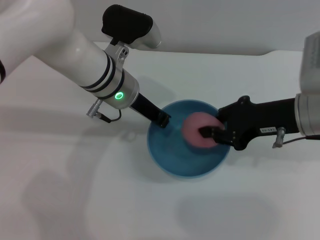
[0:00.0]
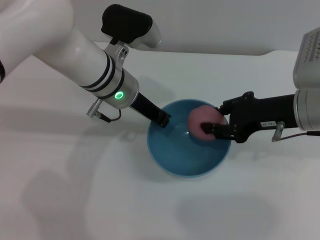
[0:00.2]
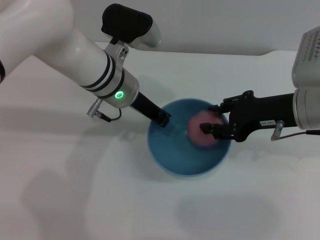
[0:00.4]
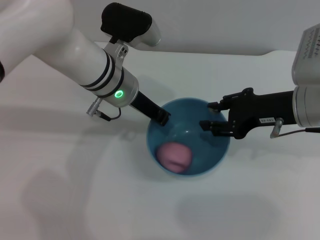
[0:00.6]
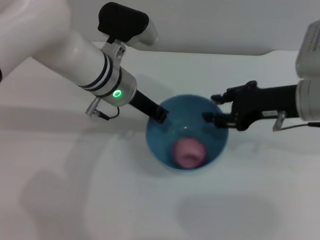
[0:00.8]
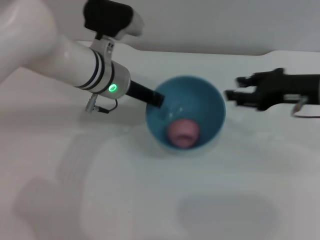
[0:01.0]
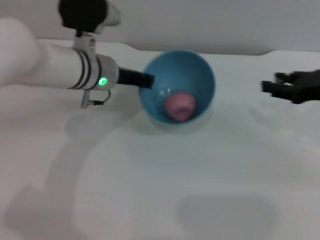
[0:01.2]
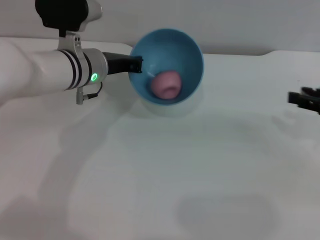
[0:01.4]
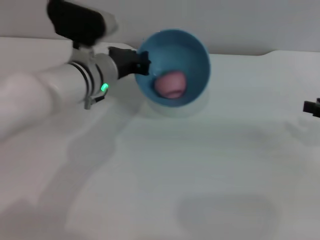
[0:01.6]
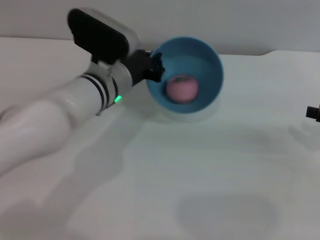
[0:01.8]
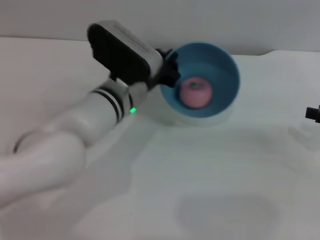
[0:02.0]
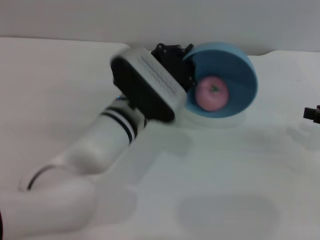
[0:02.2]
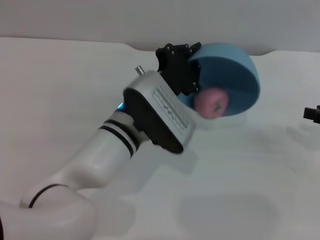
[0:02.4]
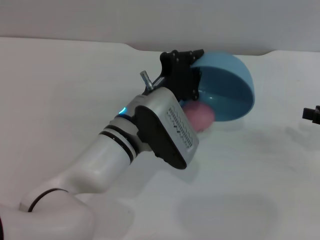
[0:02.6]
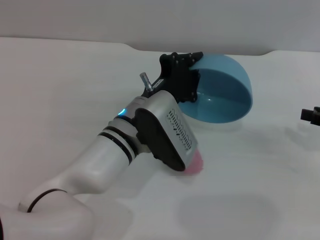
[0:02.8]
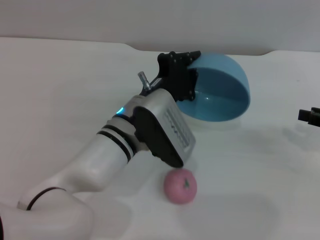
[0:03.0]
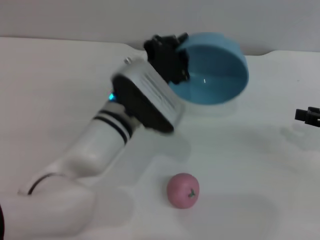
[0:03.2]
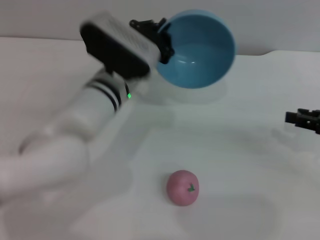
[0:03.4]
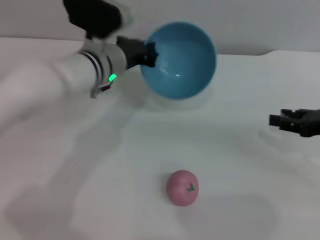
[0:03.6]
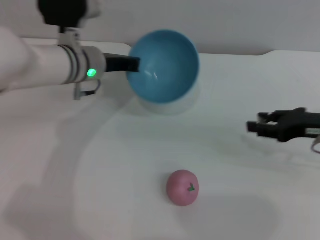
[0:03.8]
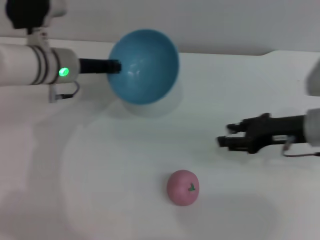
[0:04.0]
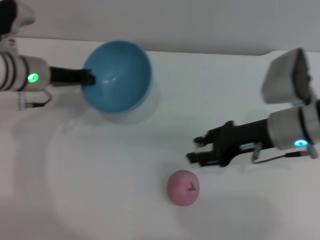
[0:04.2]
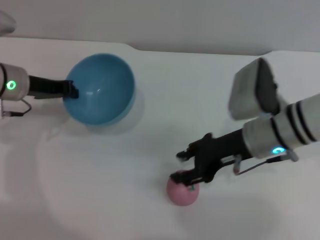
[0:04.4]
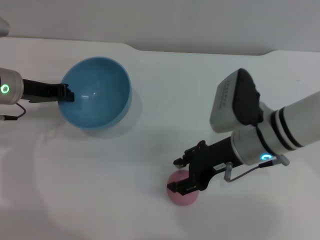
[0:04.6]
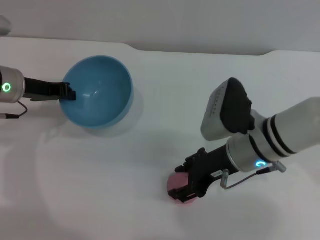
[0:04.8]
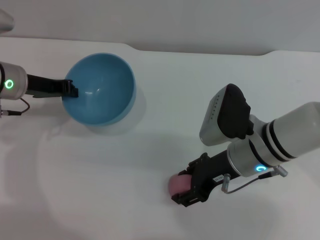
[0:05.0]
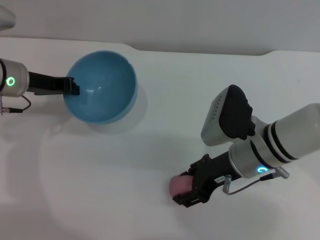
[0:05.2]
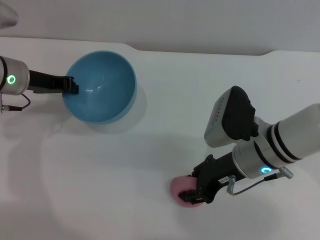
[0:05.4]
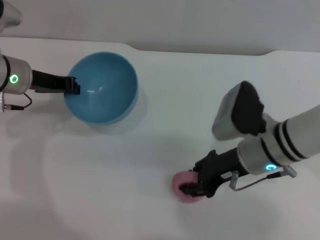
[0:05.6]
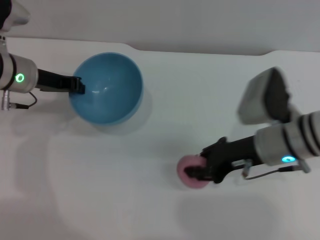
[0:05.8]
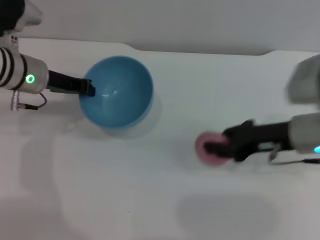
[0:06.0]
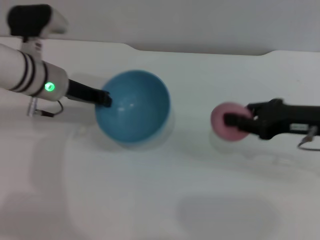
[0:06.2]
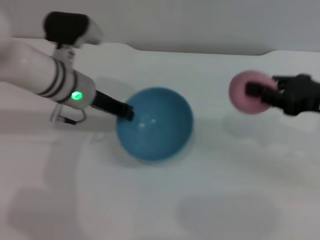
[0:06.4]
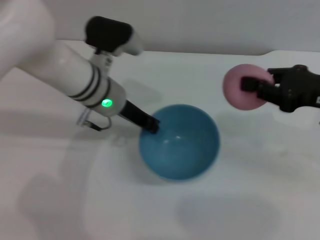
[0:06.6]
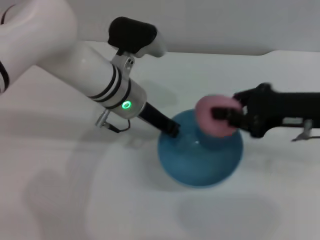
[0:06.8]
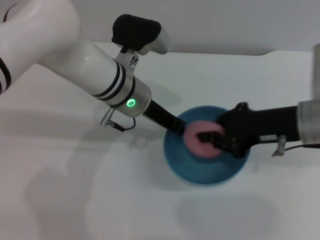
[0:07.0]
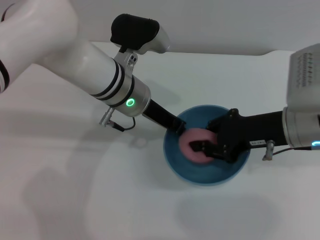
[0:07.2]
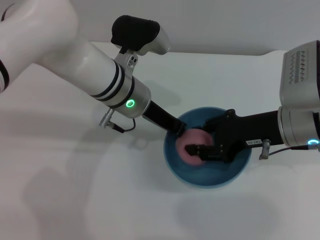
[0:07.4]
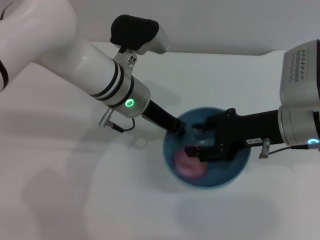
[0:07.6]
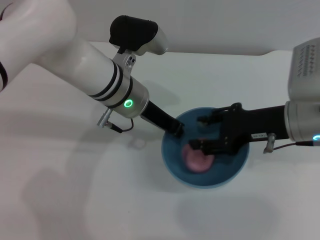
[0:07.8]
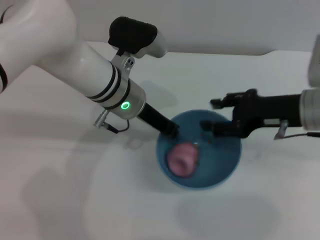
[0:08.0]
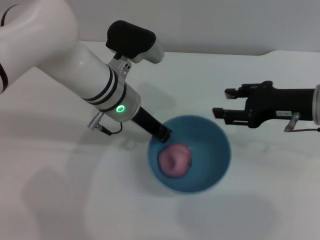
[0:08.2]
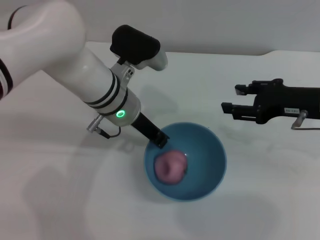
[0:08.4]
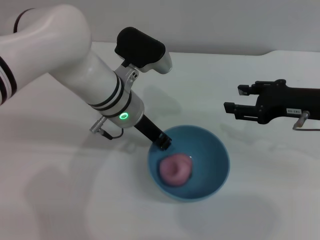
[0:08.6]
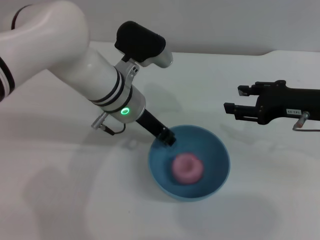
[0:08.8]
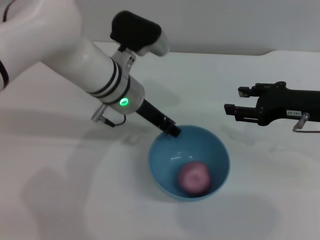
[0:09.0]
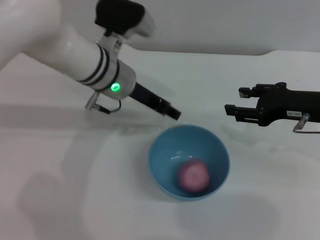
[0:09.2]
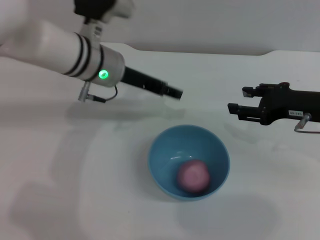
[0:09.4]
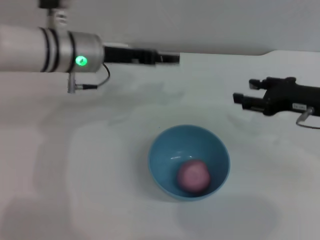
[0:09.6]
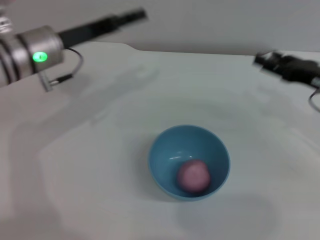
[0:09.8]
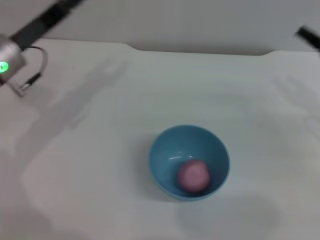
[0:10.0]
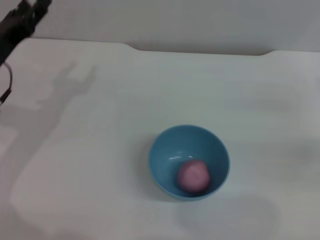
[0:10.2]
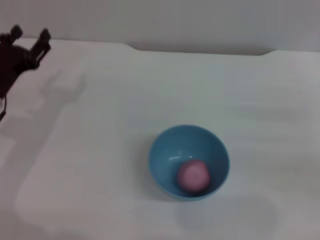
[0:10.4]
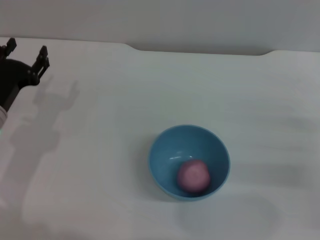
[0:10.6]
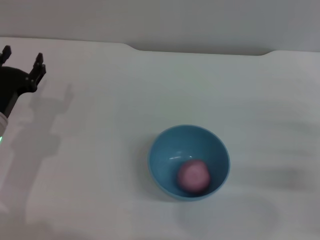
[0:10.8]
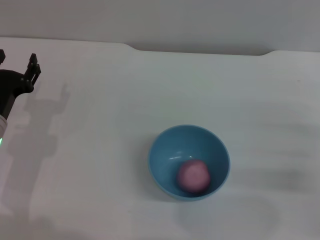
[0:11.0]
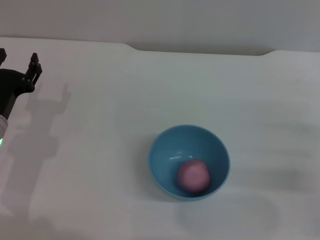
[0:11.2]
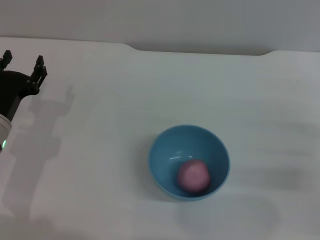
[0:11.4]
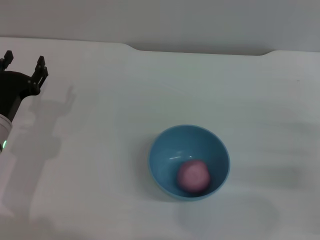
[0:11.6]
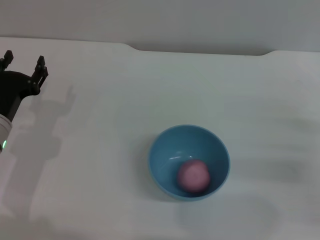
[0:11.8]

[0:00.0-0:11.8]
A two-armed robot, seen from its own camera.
Task of the whole recording: put the peach into the blue bowl and pour it out repeatedly.
Step, 0:00.0 to 0:00.8: Place the peach into the bowl.
Step, 0:01.0 to 0:03.0: Pour the peach out of bowl.
Step, 0:03.4 to 0:06.4: Pick up the peach with the right gripper.
Step, 0:06.6 to 0:08.0: Place the peach into the bowl.
Step, 0:08.2 to 0:09.2: Place the bowl on the table.
0:00.0 to 0:01.4: The right gripper goes roughly 15 cm to the right, and opens; the left gripper shifts approximately 5 cm to the left.
0:01.4 to 0:03.0: The left gripper is displaced backward and to the right by approximately 15 cm.
0:03.0 to 0:04.4: The two grippers go roughly 20 cm to the left.
0:04.4 to 0:06.0: The right gripper goes approximately 5 cm to the right.
0:06.0 to 0:07.4: The left gripper heads to the right, covering some 15 cm, while the right gripper moves some 5 cm to the right and comes back.
0:07.4 to 0:08.8: The right gripper moves to the right, some 5 cm, and opens.
0:08.8 to 0:10.4: The right gripper is displaced to the right and downward by roughly 10 cm. Meanwhile the left gripper goes roughly 20 cm to the left, and opens its fingers.

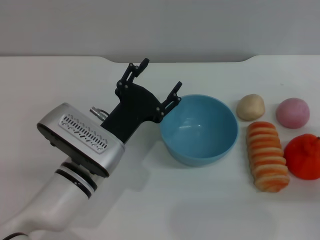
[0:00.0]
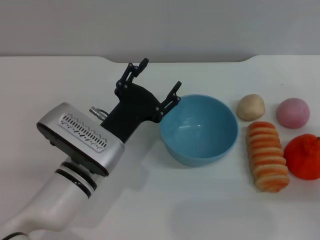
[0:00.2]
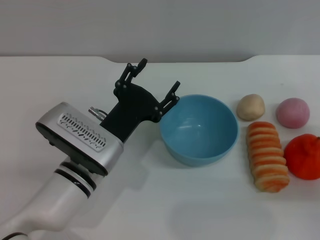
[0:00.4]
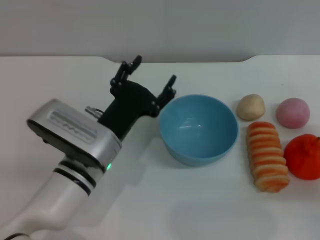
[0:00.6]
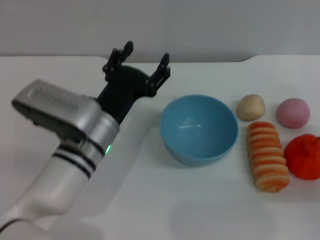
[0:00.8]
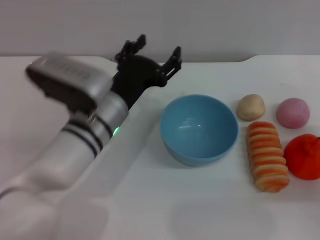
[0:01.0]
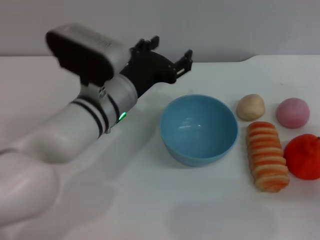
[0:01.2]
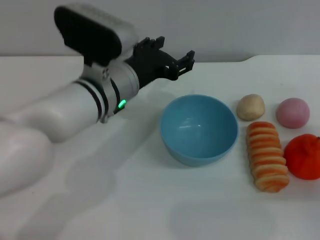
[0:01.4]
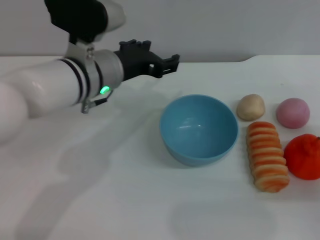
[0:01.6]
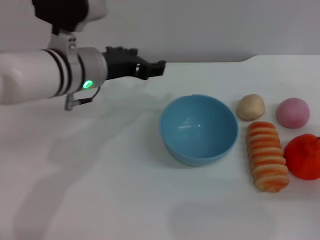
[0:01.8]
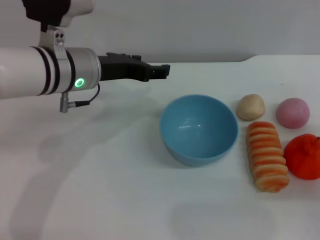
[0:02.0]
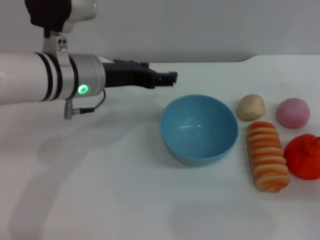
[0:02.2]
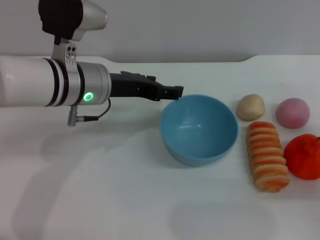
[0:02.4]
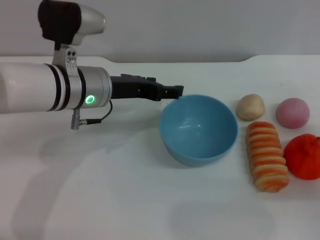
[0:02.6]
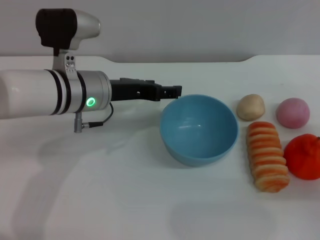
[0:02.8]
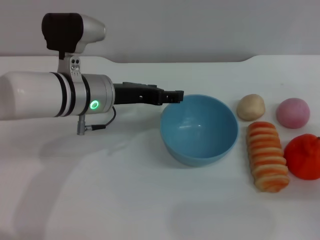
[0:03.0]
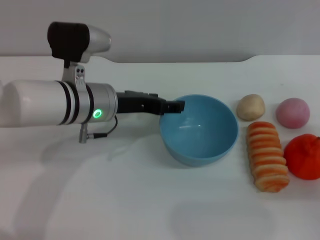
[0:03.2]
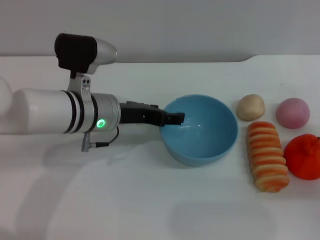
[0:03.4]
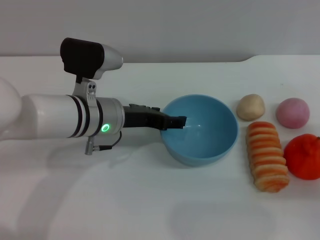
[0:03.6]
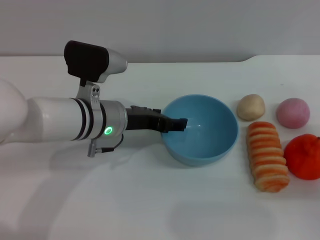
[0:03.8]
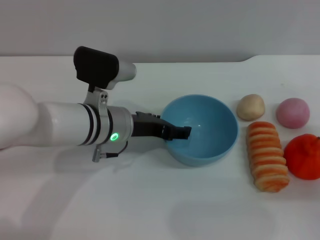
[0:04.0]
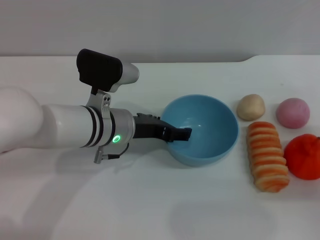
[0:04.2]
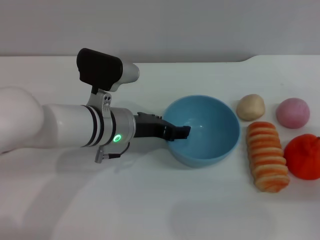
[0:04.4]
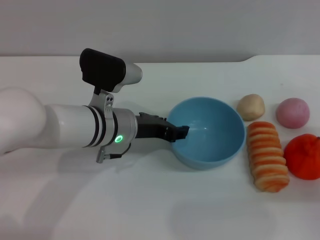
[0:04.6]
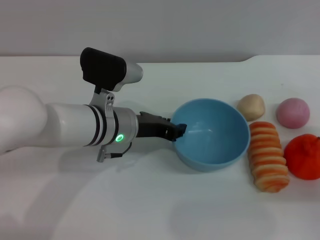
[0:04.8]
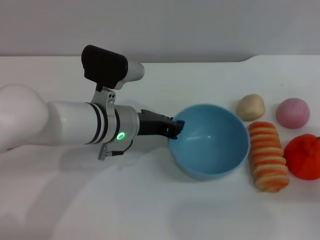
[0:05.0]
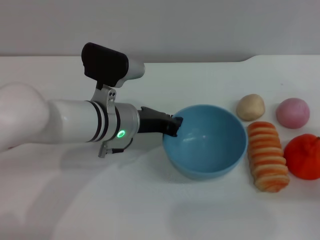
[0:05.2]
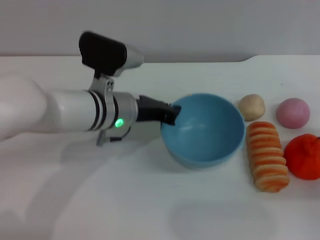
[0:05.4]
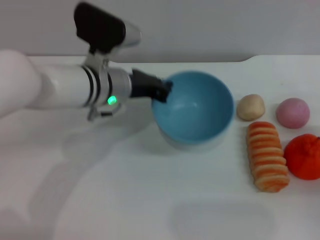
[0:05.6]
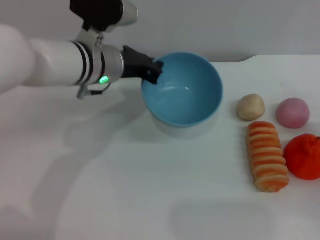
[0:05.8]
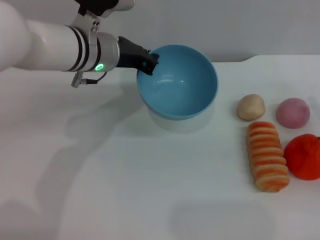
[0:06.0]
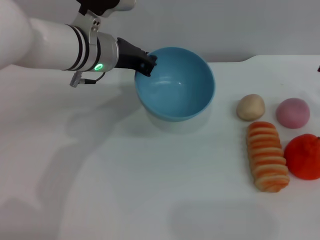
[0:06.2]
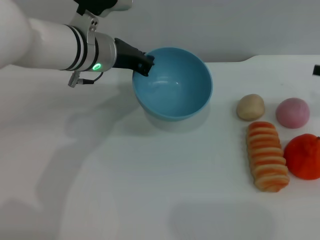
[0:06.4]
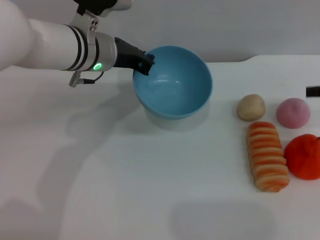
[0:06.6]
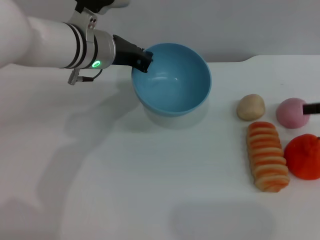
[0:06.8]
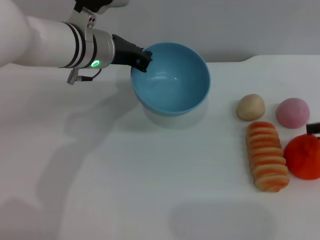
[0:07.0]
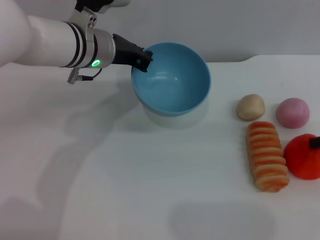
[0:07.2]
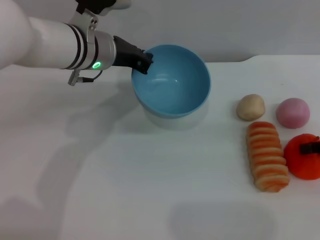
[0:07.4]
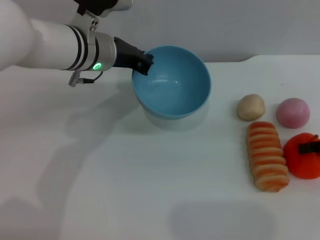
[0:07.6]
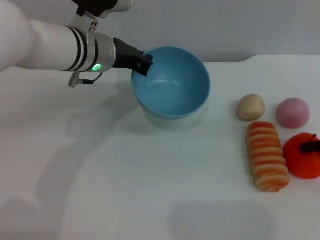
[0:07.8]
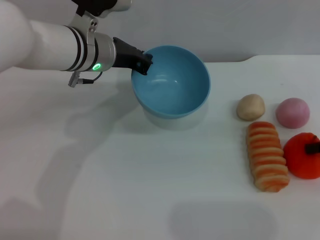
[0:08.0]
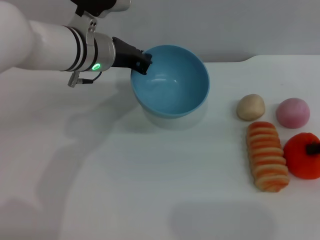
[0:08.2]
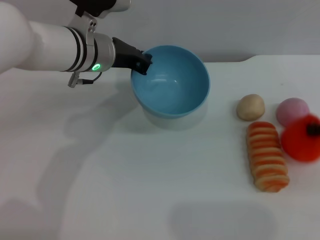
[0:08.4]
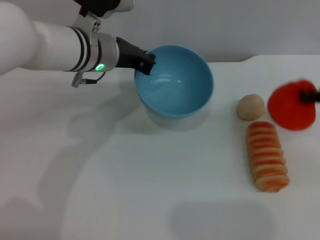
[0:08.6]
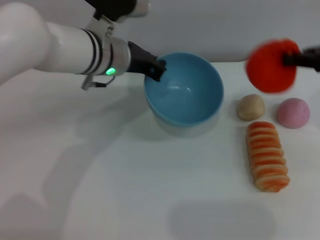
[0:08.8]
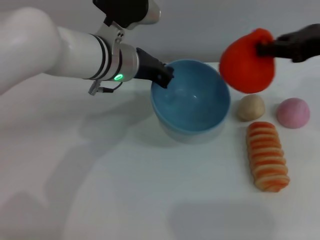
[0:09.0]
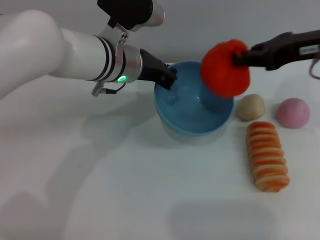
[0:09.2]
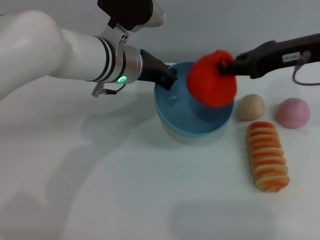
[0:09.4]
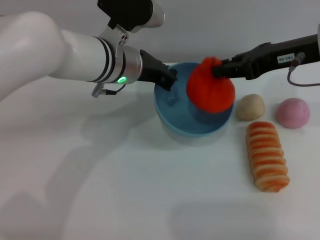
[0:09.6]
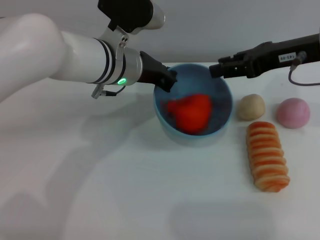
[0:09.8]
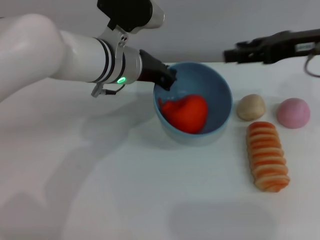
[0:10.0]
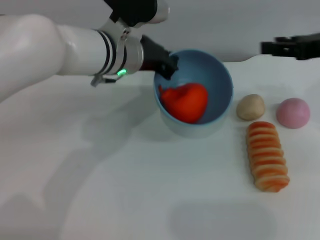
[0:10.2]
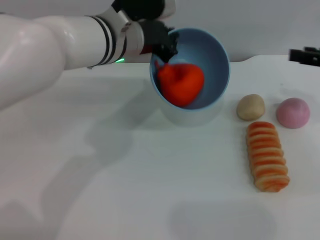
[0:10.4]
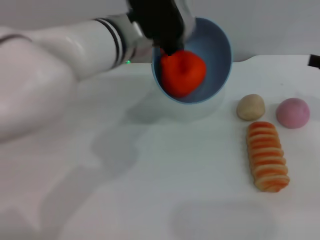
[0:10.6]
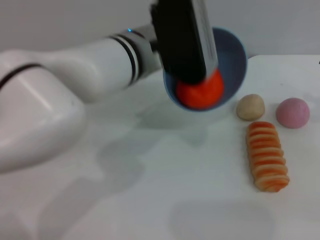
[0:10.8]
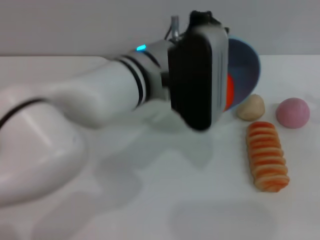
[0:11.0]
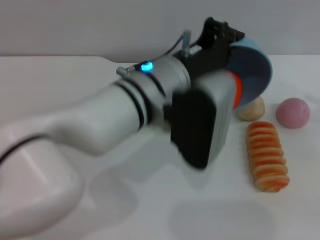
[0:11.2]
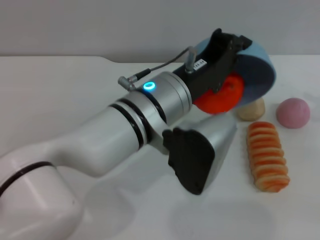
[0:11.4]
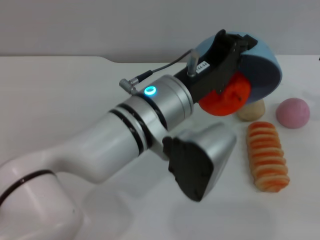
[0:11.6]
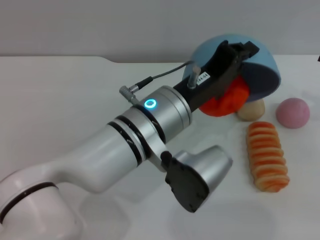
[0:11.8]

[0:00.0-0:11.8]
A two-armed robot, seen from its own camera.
Task of the whole recording: put the orange into the blue bowl and pour it out repeatedly.
Step, 0:00.0 to 0:05.6: Pick up the bowl with the left gripper.
Step, 0:05.8 to 0:08.4: Pick up the orange with the right gripper.
Step, 0:08.6 to 0:09.8: Place the orange into the bowl.
0:00.0 to 0:01.4: The left gripper travels upward and forward by about 10 cm.
0:03.0 to 0:04.4: The left gripper changes place by some 5 cm.
0:04.4 to 0:06.0: The right gripper shifts by roughly 5 cm, while the left gripper heads upward and forward, covering approximately 10 cm, and closes.
0:06.0 to 0:07.4: The right gripper is displaced upward by roughly 5 cm.
0:07.4 to 0:08.8: The right gripper heads upward and to the left, covering approximately 10 cm, and closes its fingers.
0:08.8 to 0:10.4: The right gripper goes to the left and returns, some 10 cm each way, and opens up.
0:10.4 to 0:11.8: The right gripper moves approximately 5 cm. Meanwhile the left gripper shifts about 10 cm backward.
